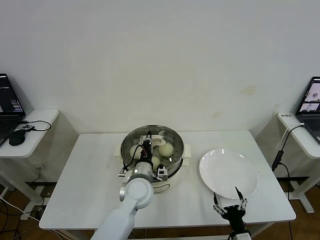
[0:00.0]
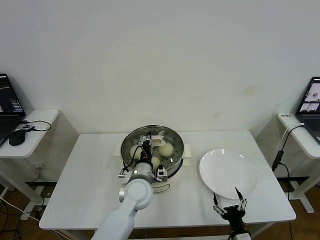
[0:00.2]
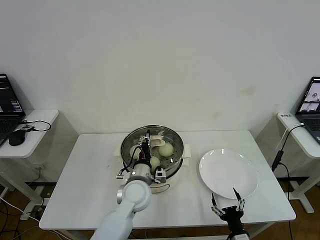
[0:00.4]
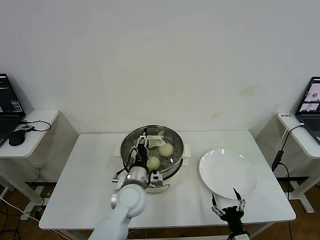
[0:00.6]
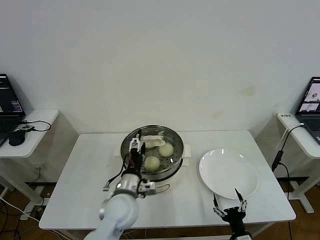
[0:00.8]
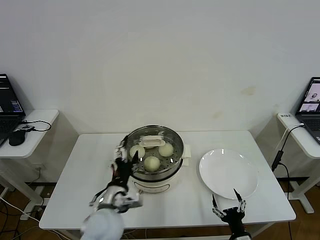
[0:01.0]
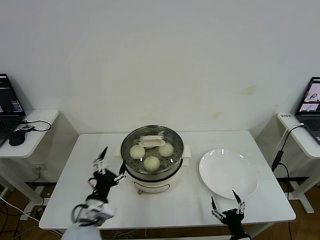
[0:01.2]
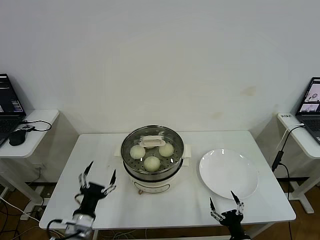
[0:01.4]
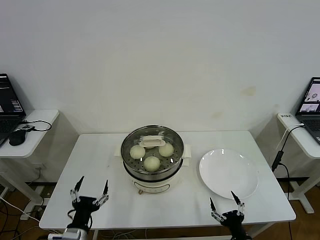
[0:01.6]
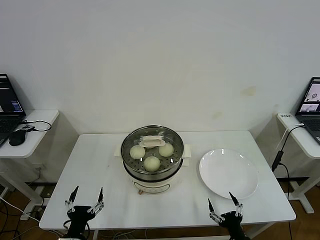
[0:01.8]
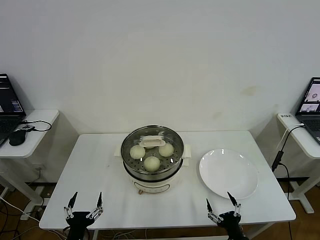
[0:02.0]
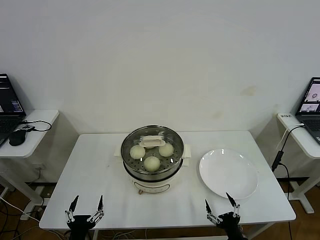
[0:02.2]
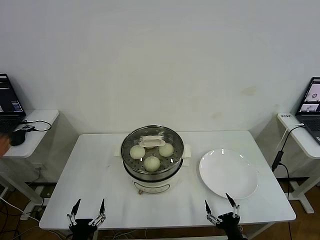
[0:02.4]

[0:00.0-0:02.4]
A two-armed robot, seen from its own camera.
0:00.0 to 0:01.2: The left gripper goes about 20 cm backward and to the left, and opens.
0:01.2 to 0:02.4: The left gripper is displaced backward, downward and to the left by roughly 15 cm.

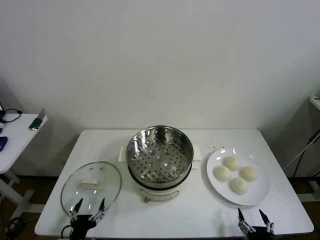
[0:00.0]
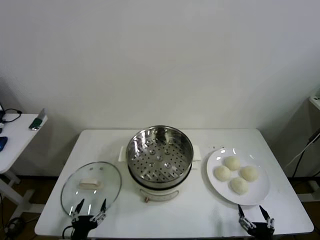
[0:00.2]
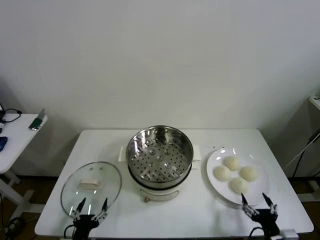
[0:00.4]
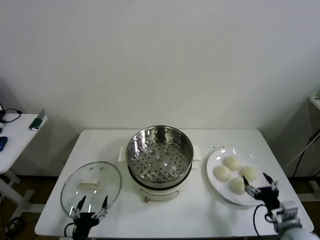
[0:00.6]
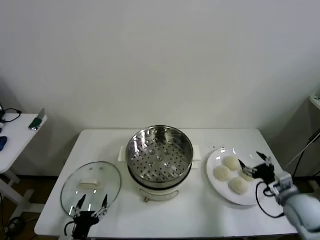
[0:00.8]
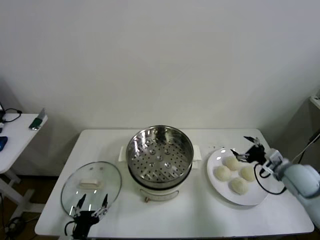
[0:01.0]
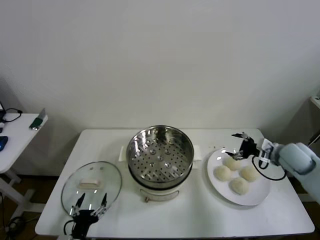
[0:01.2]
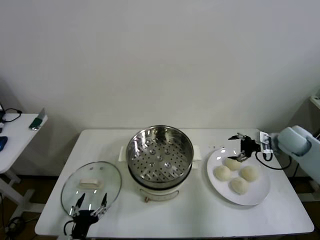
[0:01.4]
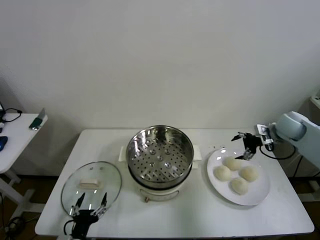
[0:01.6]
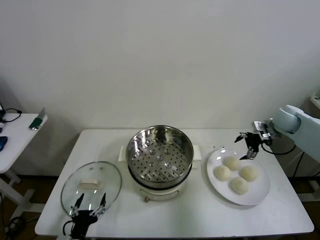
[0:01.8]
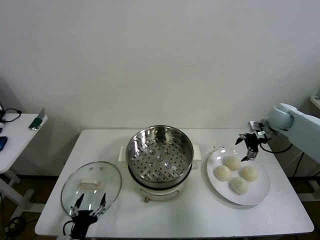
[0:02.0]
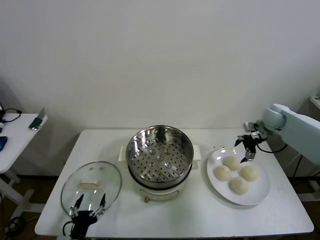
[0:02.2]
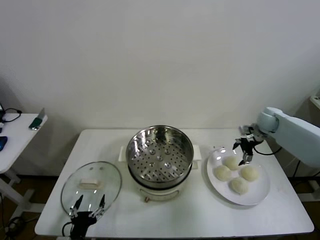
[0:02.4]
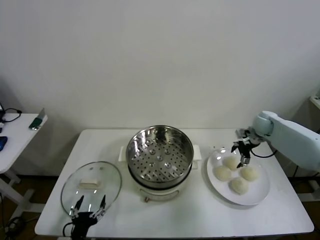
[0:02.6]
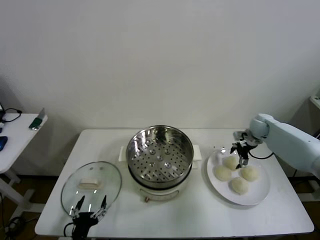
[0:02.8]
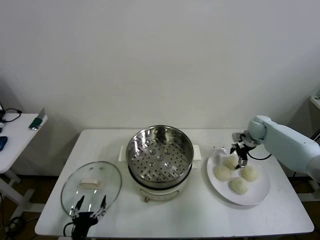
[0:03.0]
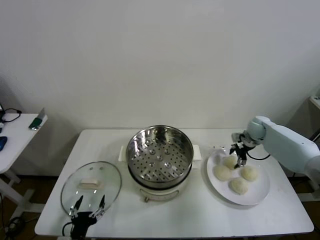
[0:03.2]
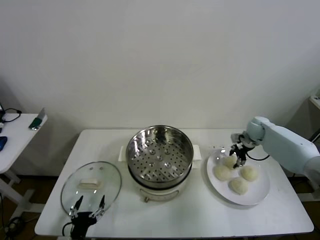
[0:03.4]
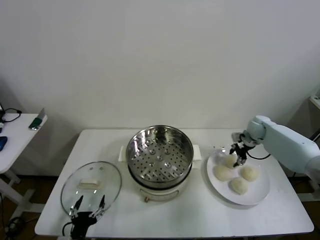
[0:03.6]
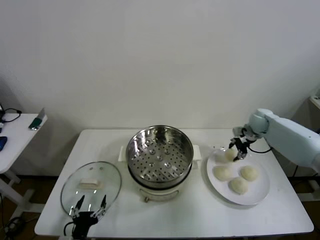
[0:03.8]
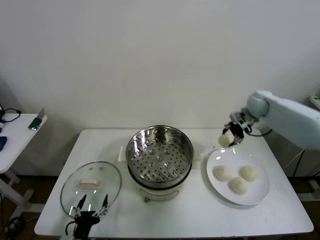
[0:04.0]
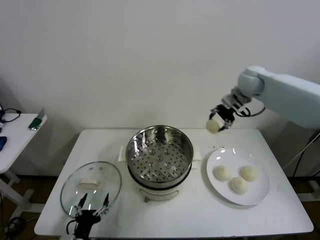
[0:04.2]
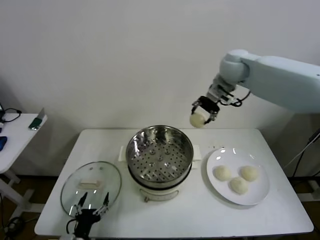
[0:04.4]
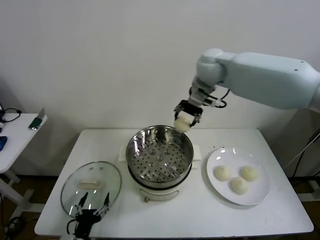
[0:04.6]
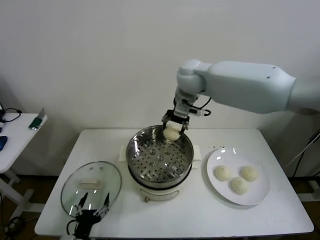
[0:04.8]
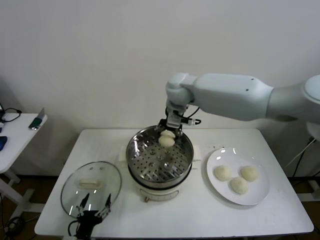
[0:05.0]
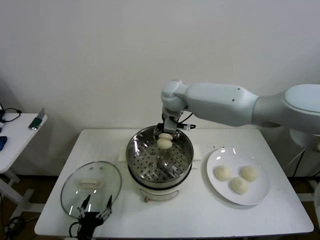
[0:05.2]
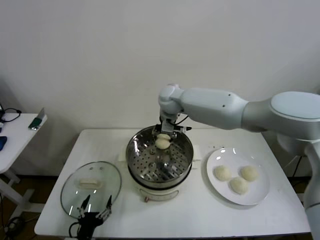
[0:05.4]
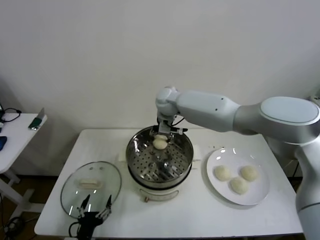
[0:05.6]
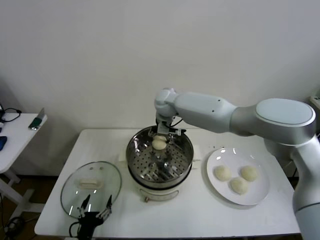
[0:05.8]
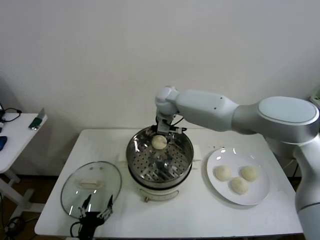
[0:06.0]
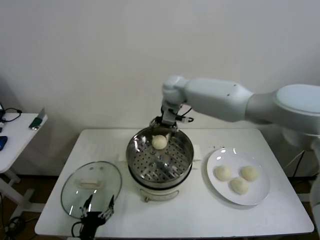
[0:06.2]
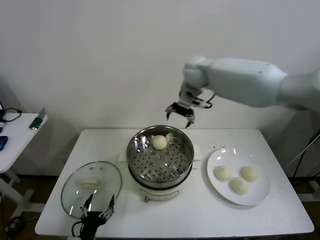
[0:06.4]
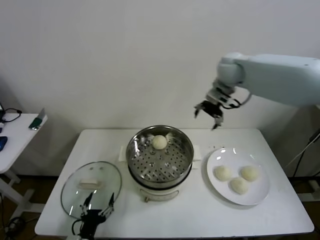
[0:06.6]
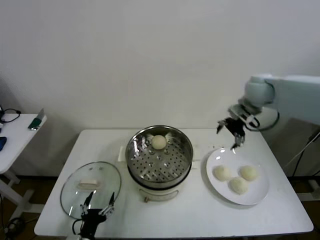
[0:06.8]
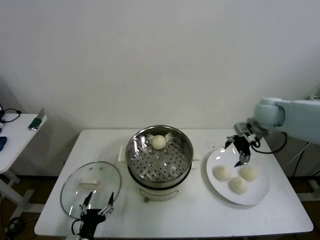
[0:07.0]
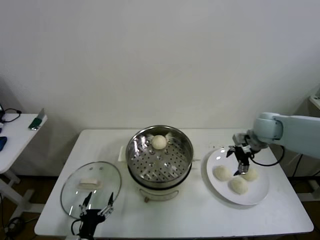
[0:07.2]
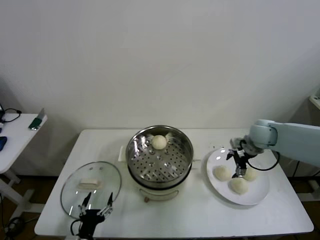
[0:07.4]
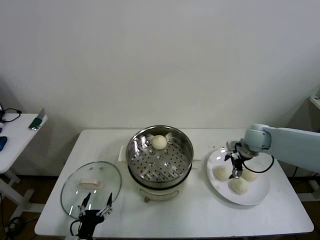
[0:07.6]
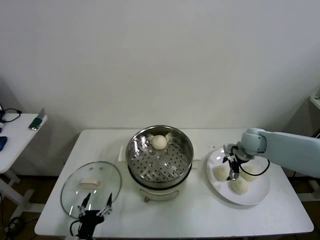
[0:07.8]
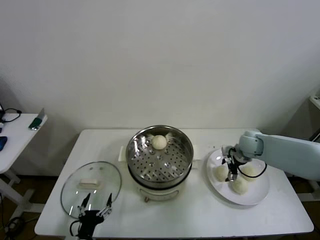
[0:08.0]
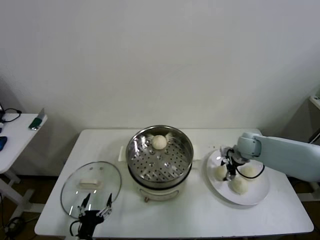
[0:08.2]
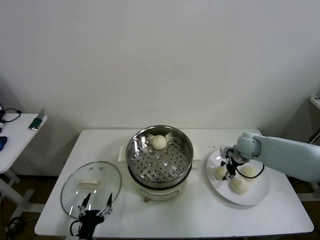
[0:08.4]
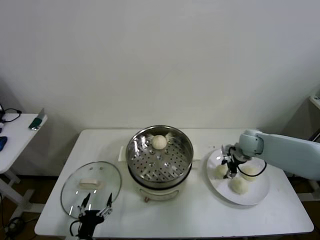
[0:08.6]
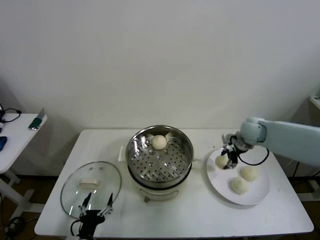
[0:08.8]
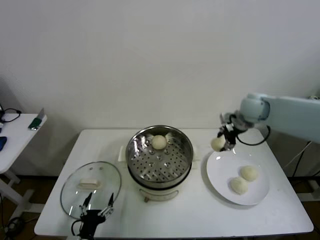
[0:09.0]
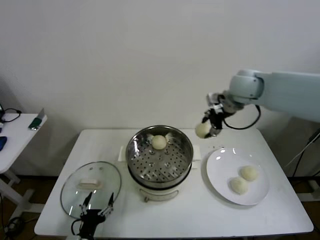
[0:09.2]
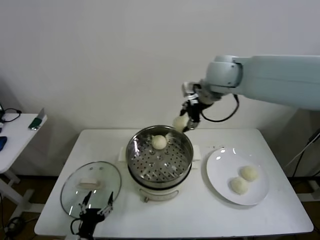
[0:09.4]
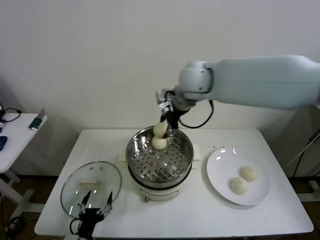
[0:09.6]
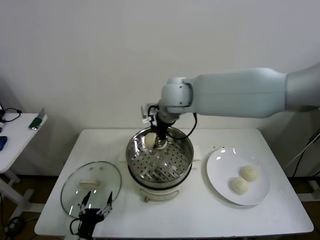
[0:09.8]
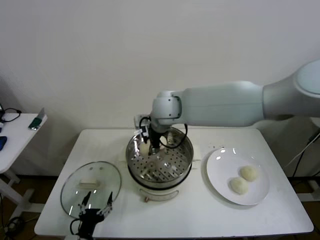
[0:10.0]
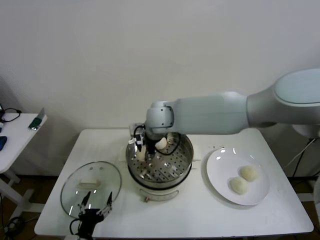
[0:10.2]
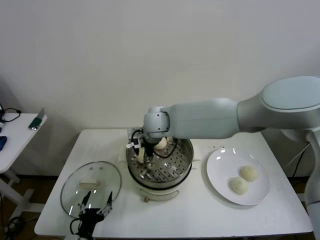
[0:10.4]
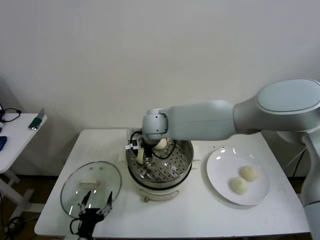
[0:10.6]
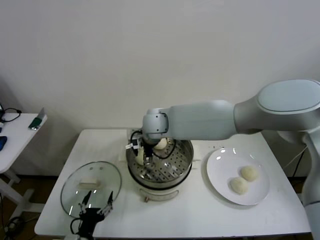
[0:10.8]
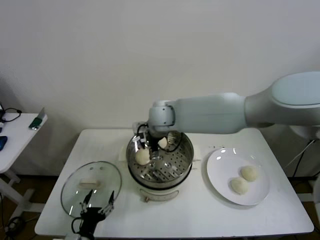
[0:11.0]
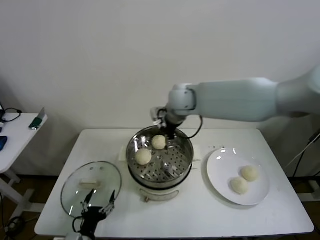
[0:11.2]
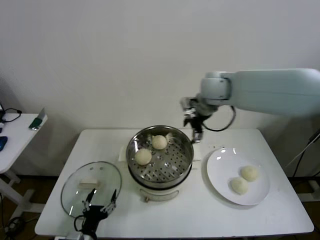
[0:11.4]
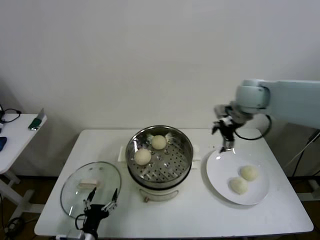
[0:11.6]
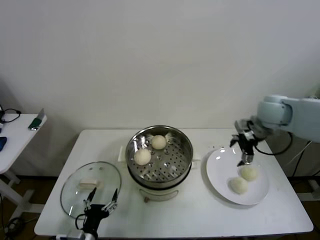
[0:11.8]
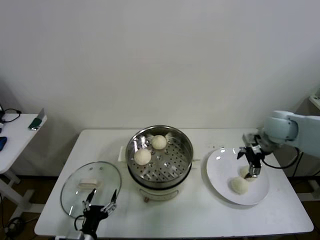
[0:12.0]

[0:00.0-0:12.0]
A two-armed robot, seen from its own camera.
Step, 0:00.0 to 0:03.4: Grasp the baozi in the plate with right gripper.
Step, 0:03.6 to 0:06.0: Place the baozi on the steamer with right gripper.
Step, 0:06.2 to 0:08.2: Grasp the baozi in the plate with right gripper.
Step, 0:08.4 to 0:10.8: Place the baozi on the steamer with right gripper.
0:01.6 to 0:03.0: The right gripper heads downward and forward, covering roughly 10 cm.
0:03.0 to 0:04.4: The right gripper goes about 35 cm upward and to the left, and closes.
0:04.4 to 0:06.0: The right gripper shifts some 20 cm to the left and downward, and opens its fingers.
0:06.0 to 0:07.6: The right gripper goes roughly 35 cm to the right and downward.
0:07.6 to 0:09.0: The right gripper is displaced upward by approximately 15 cm, and closes its fingers.
0:09.0 to 0:10.4: The right gripper moves to the left, about 30 cm.
0:10.4 to 0:12.0: The right gripper heads to the right, covering approximately 40 cm, and opens.

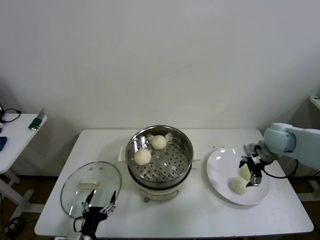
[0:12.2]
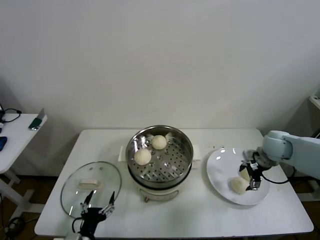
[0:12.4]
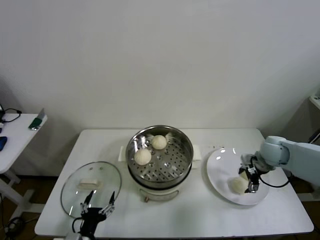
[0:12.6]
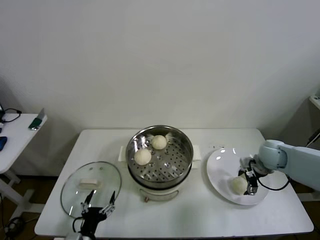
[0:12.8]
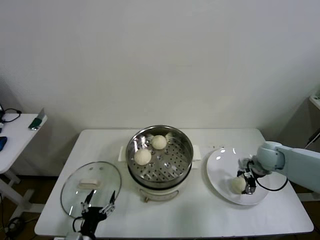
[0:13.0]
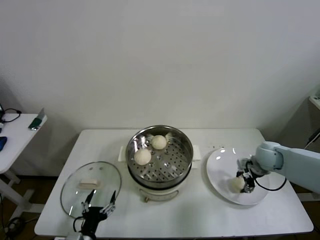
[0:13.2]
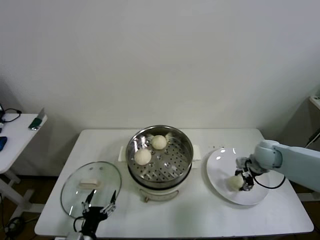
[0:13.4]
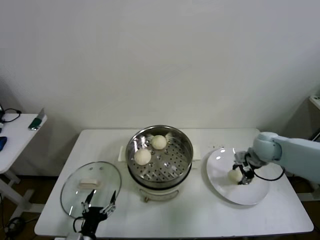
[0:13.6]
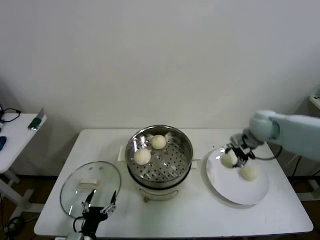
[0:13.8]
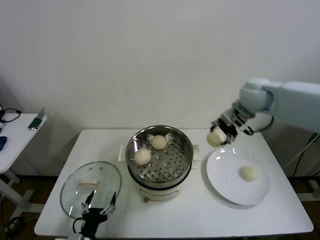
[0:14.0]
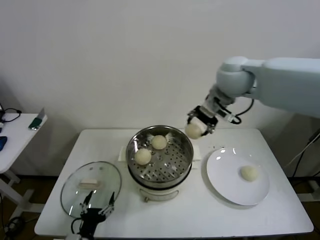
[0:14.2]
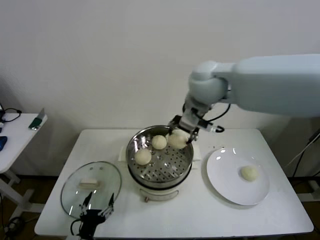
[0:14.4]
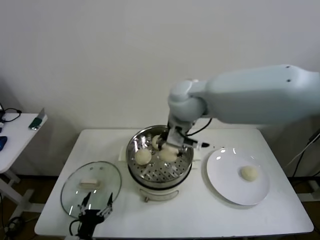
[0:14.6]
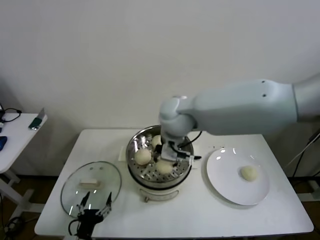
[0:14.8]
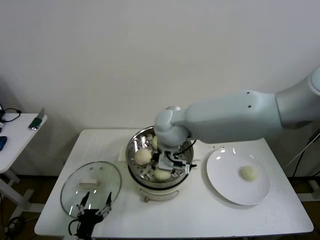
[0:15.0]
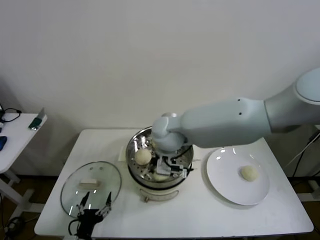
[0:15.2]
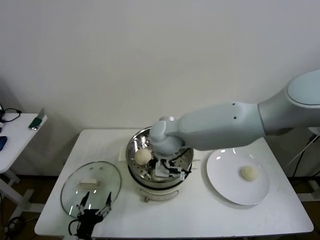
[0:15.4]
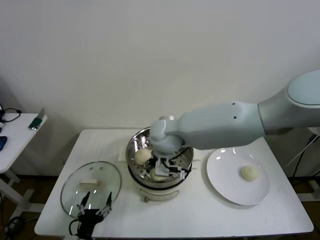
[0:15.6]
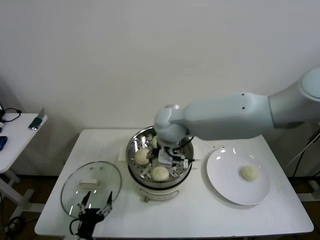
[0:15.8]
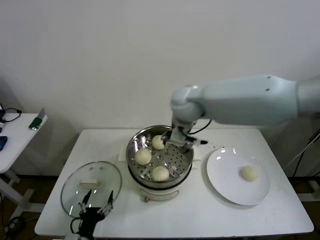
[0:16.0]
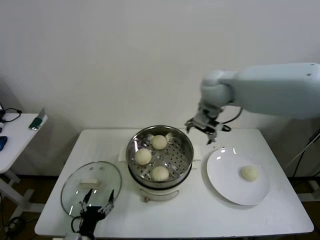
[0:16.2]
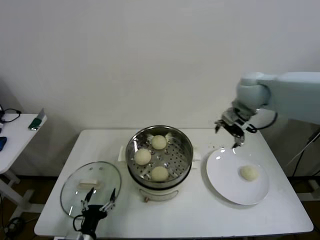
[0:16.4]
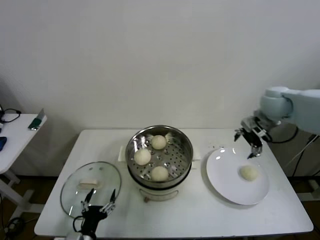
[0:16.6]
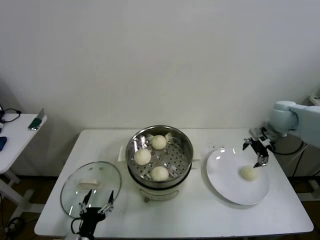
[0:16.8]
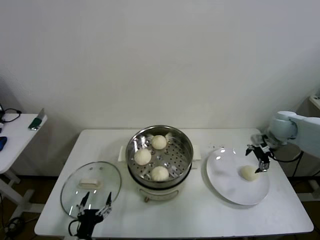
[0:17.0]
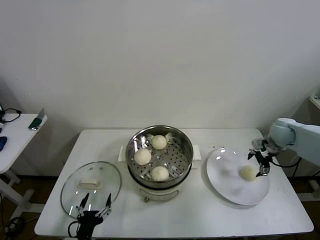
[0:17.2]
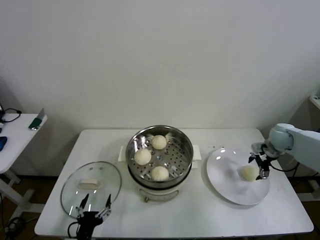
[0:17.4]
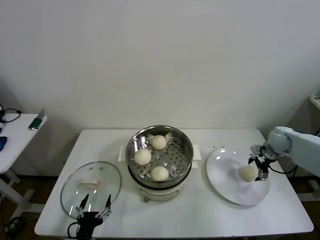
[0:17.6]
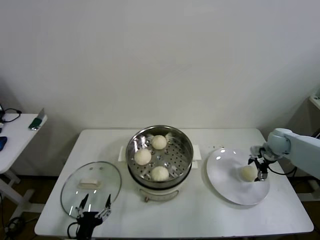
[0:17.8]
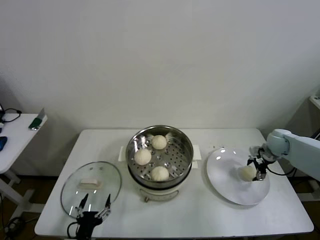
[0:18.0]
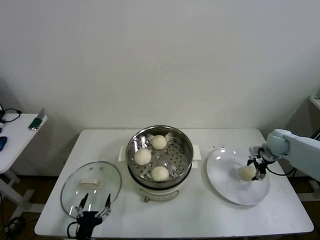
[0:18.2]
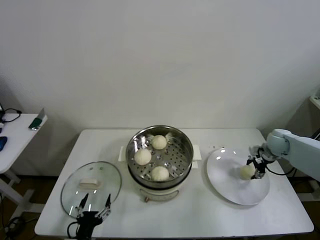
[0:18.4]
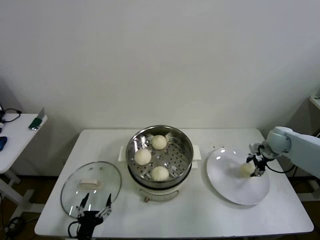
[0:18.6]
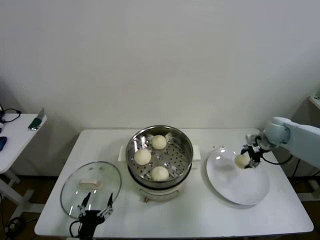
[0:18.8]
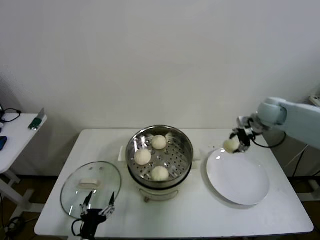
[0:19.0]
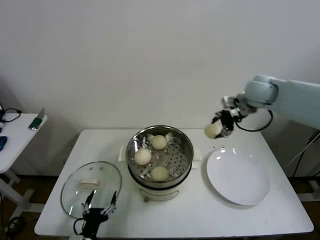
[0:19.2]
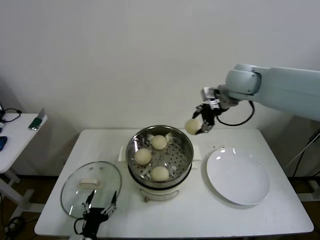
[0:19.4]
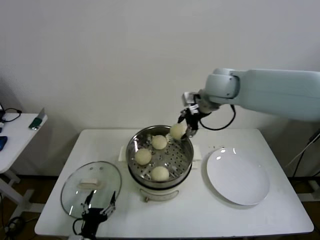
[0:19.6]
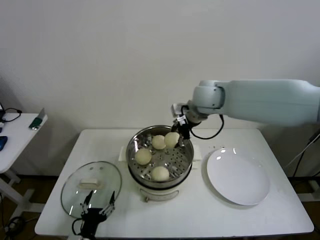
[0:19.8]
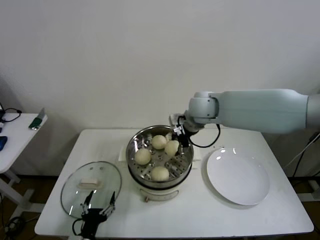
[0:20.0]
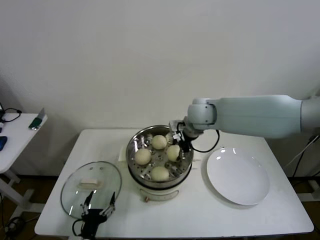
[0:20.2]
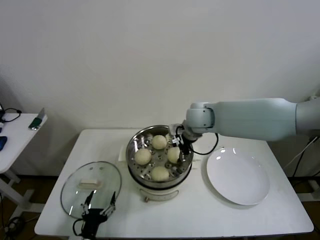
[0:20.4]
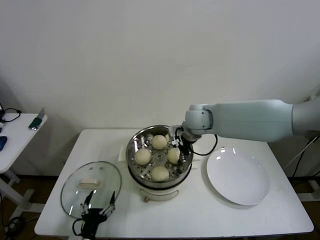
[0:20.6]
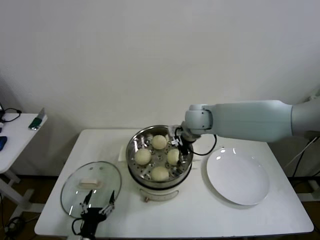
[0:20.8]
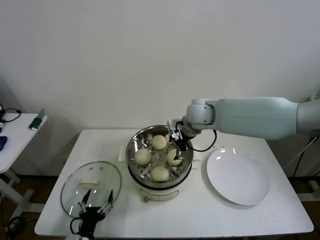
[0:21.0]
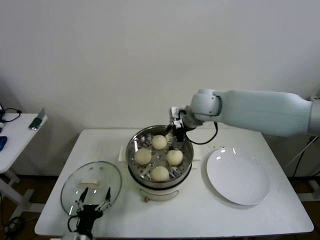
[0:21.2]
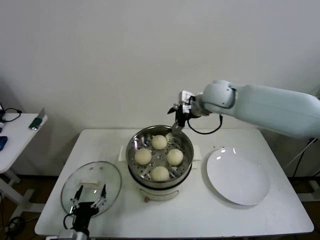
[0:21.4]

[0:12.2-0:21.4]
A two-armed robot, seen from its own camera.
Step, 0:13.2 to 0:15.6: Place the baozi on the steamer with right gripper.
Step, 0:15.8 to 0:18.2: Grasp the baozi in the plate with right gripper.
Step, 0:18.4 to 0:21.0: Place the baozi on the steamer with right gripper.
0:12.2 to 0:13.8: The right gripper goes about 10 cm upward and to the left, and closes its fingers.
0:13.8 to 0:15.2: The right gripper heads to the left, covering roughly 30 cm.
0:15.2 to 0:16.8: The right gripper is displaced to the right by some 40 cm, and opens its fingers.
0:16.8 to 0:18.4: The right gripper goes some 15 cm downward, and closes its fingers.
0:18.4 to 0:19.8: The right gripper travels to the left and upward by approximately 40 cm.
0:19.8 to 0:21.4: The right gripper goes downward and returns, approximately 10 cm each way, and opens.
